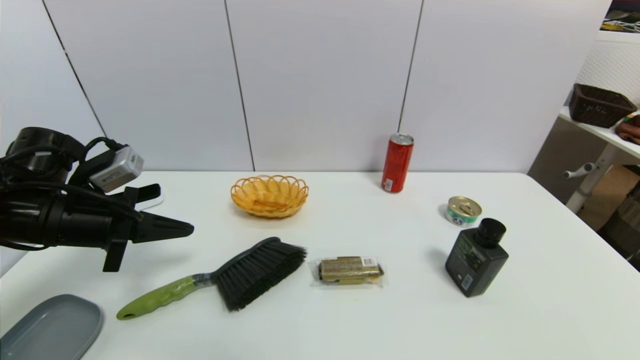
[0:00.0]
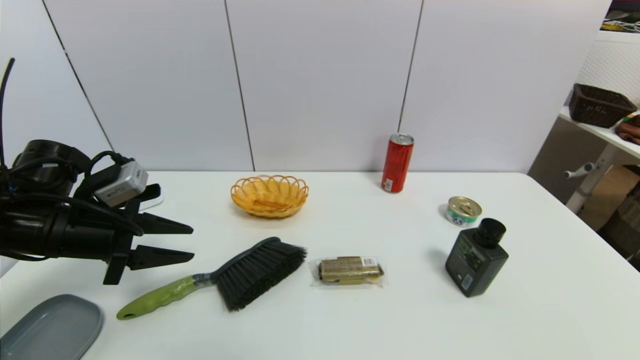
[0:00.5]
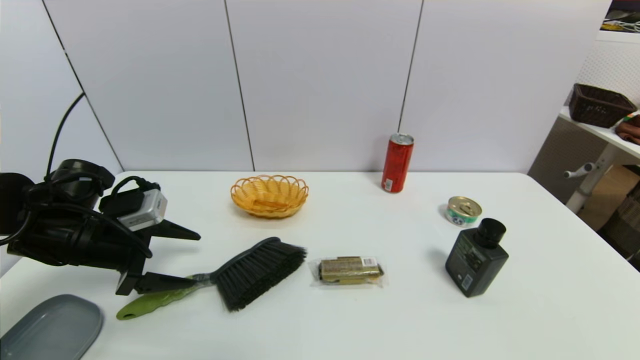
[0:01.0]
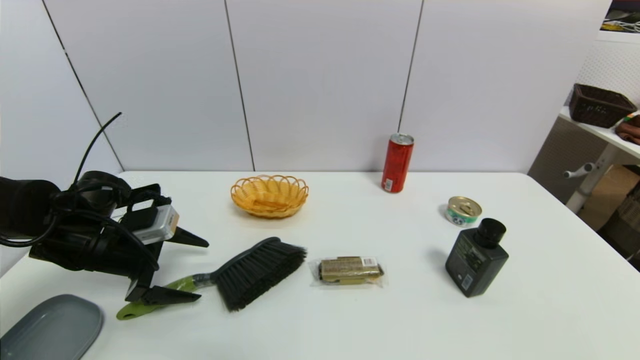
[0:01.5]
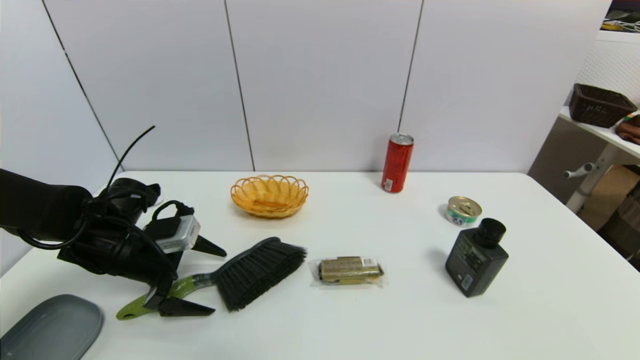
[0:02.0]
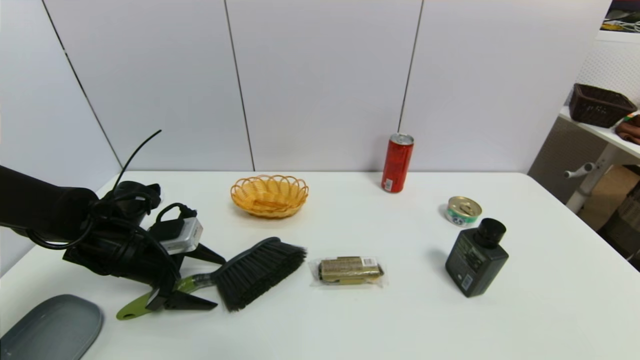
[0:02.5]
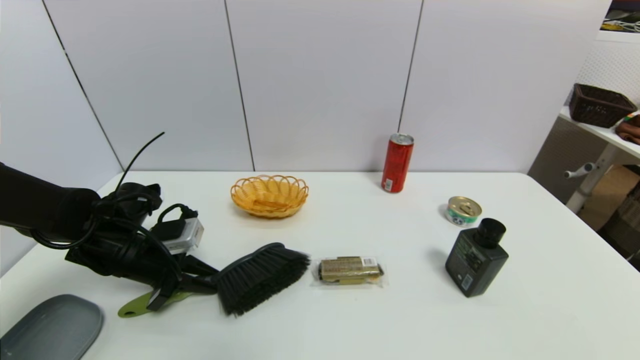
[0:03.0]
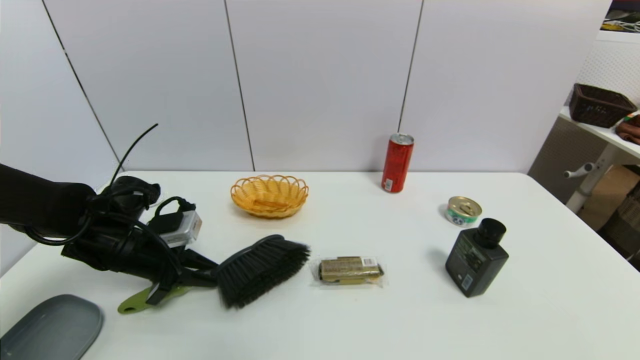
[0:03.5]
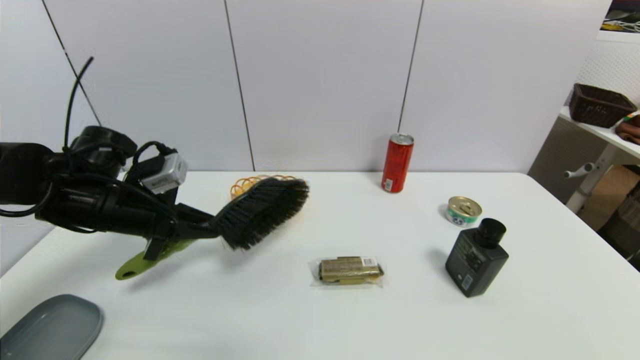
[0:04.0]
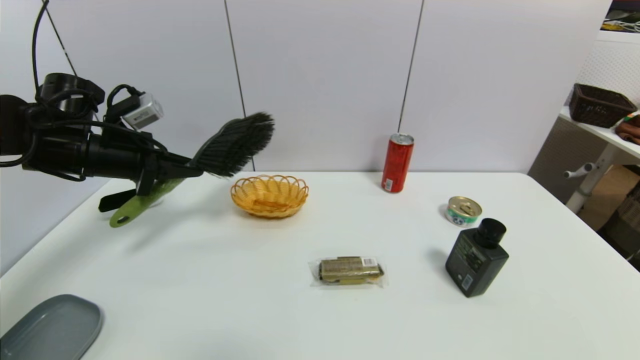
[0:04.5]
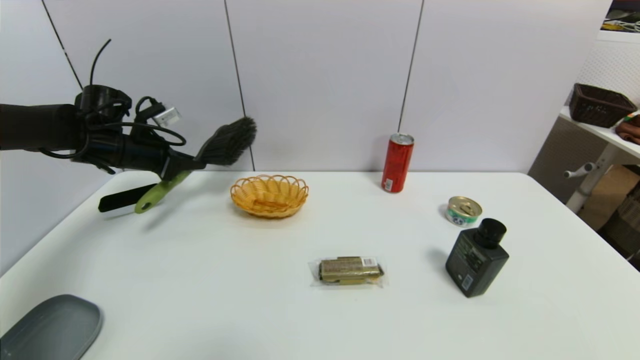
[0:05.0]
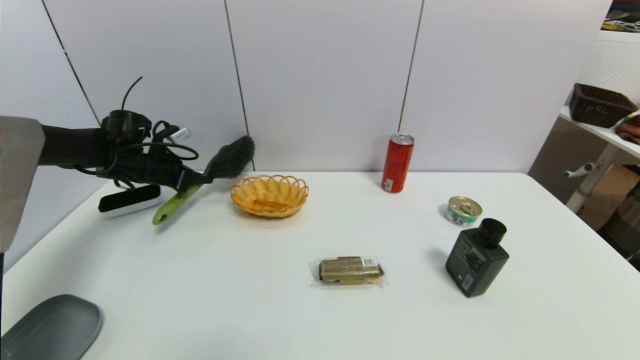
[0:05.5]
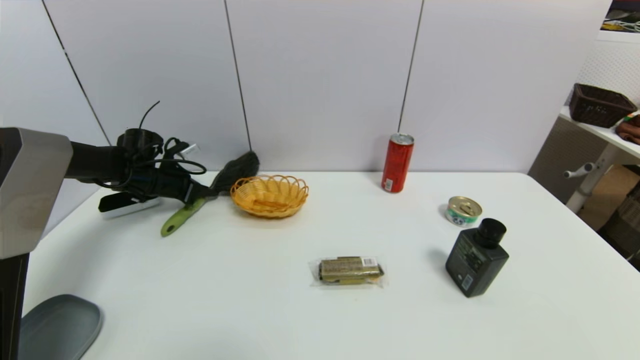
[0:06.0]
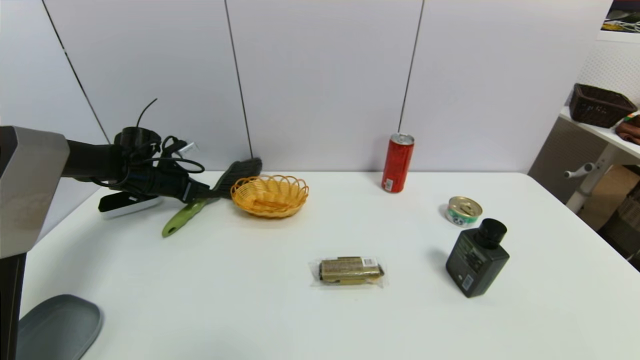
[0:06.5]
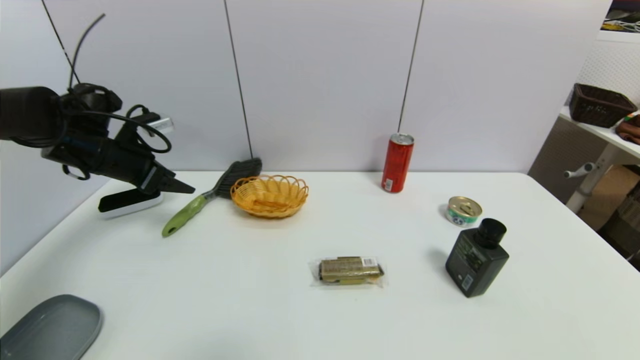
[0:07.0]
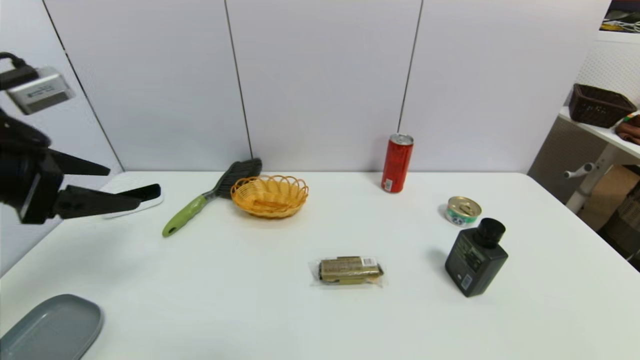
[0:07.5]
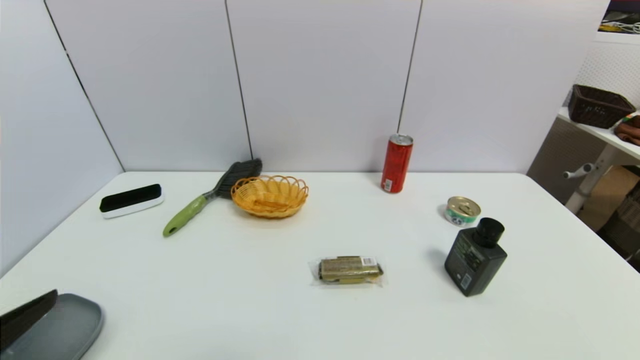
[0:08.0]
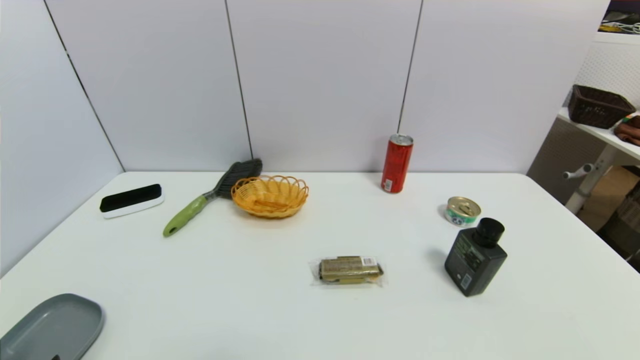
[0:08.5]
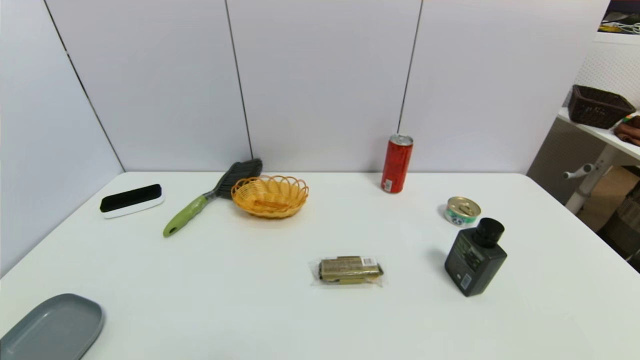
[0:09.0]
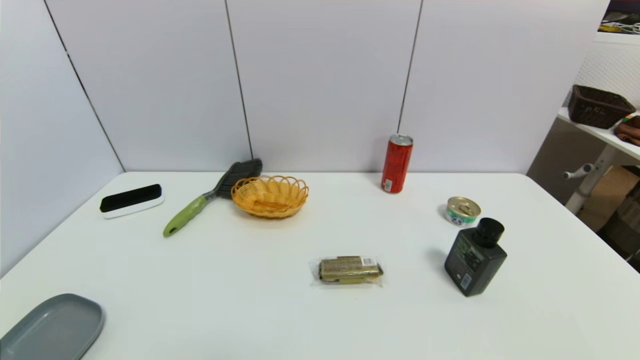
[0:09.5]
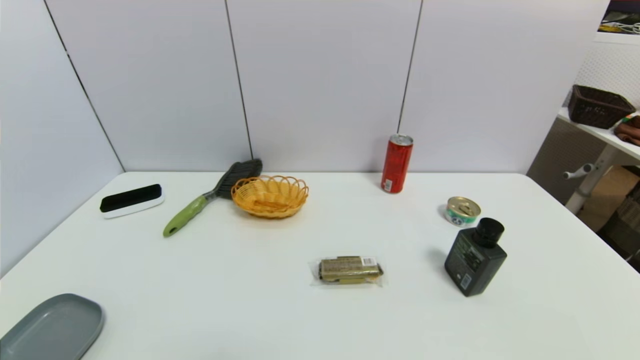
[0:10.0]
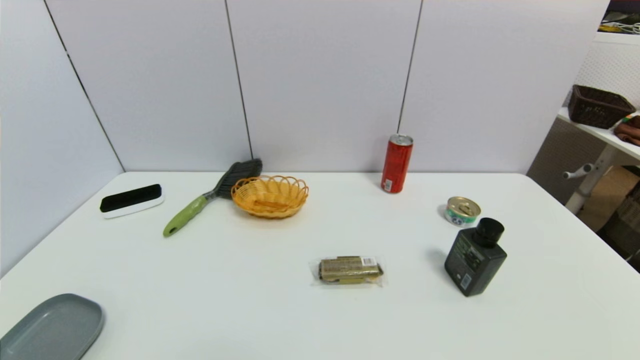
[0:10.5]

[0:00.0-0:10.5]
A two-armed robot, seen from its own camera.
Task of the whole recording: put the brush in the designated position.
Step, 0:00.0 to 0:02.5: Grasp the brush with left gripper.
Step, 0:03.5 to 0:06.5: Place the brush on the table with left gripper.
0:00.0 to 0:02.0: The left gripper shifts roughly 10 cm downward, and opens up.
0:02.0 to 0:04.0: The left gripper moves upward, about 5 cm, and closes.
0:04.0 to 0:06.5: The left gripper shifts some 15 cm forward, and opens.
0:06.5 to 0:08.5: The left gripper travels backward by approximately 50 cm, and opens.

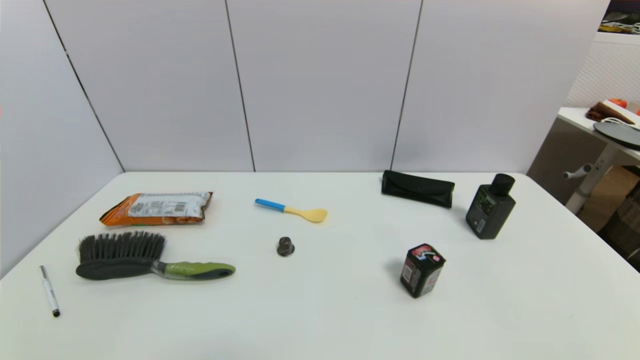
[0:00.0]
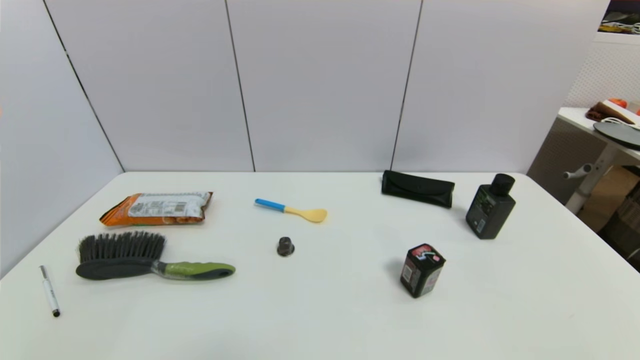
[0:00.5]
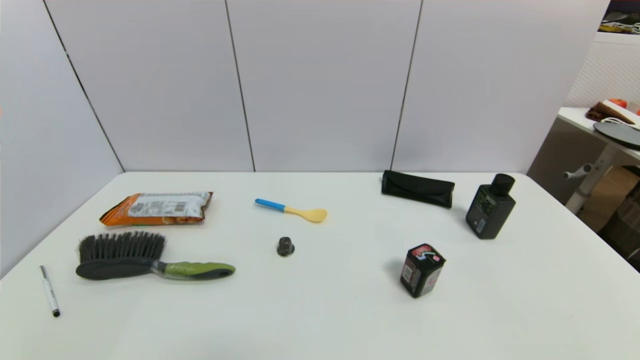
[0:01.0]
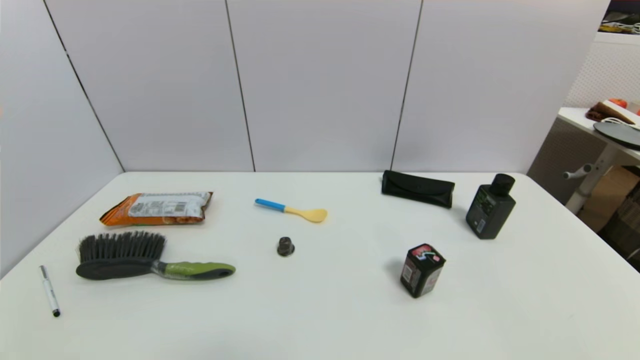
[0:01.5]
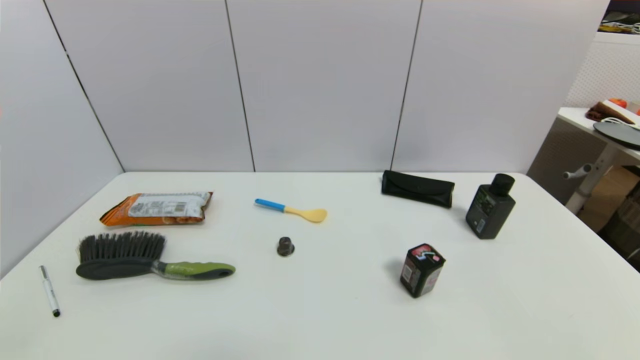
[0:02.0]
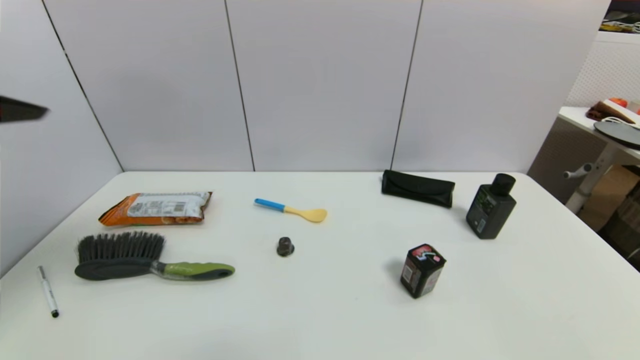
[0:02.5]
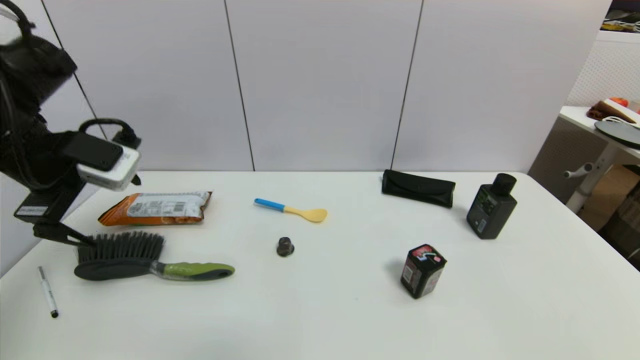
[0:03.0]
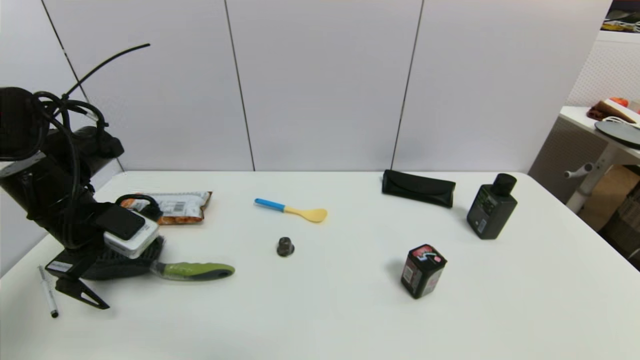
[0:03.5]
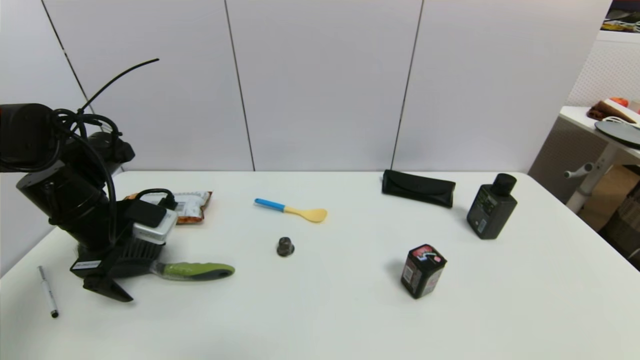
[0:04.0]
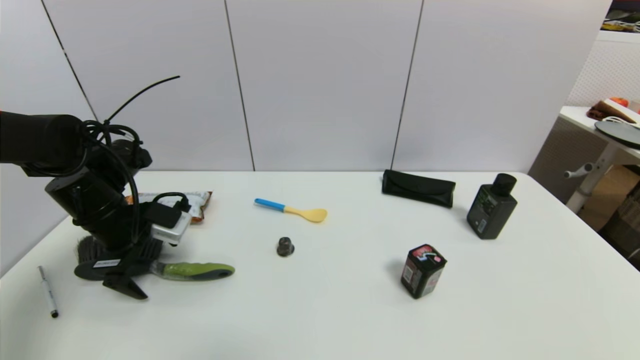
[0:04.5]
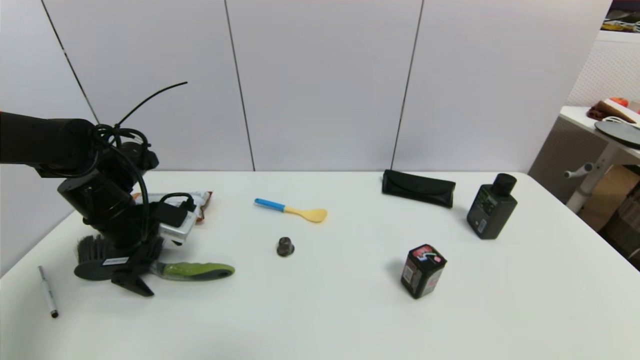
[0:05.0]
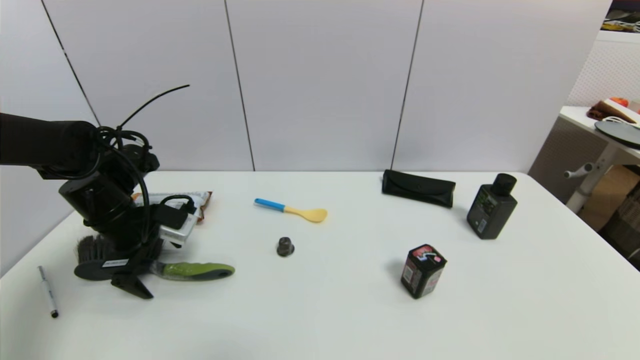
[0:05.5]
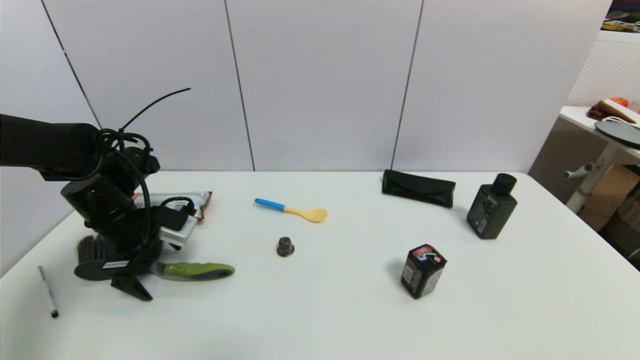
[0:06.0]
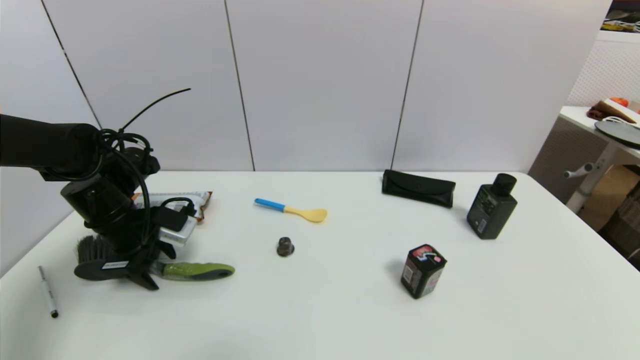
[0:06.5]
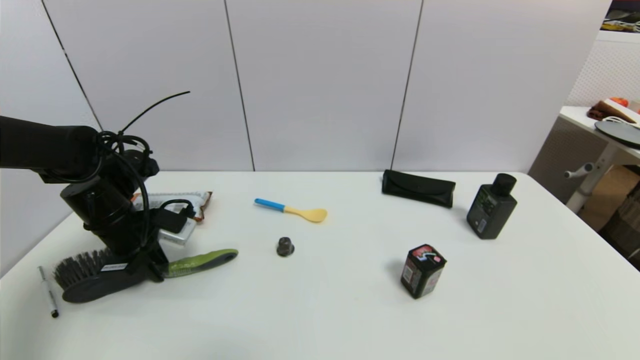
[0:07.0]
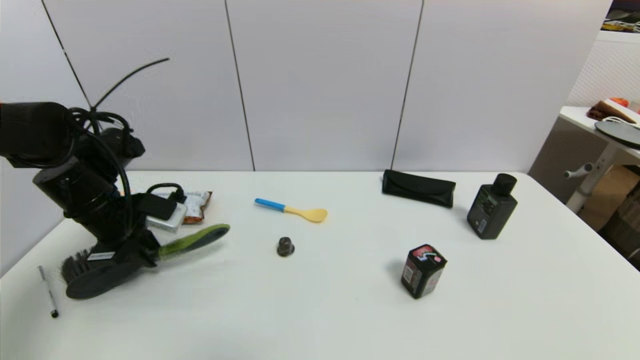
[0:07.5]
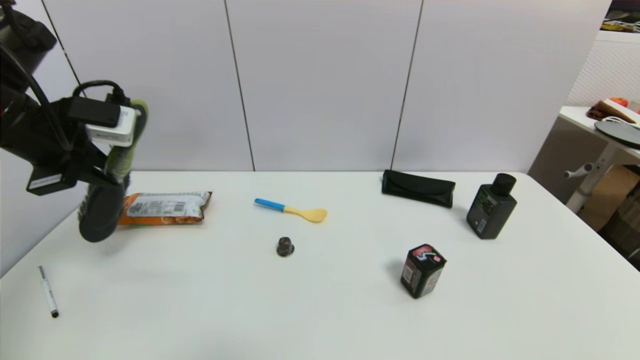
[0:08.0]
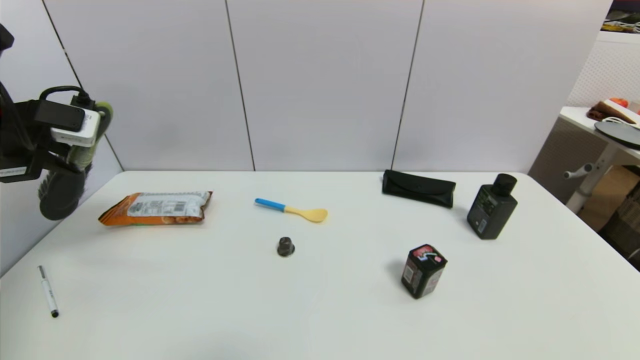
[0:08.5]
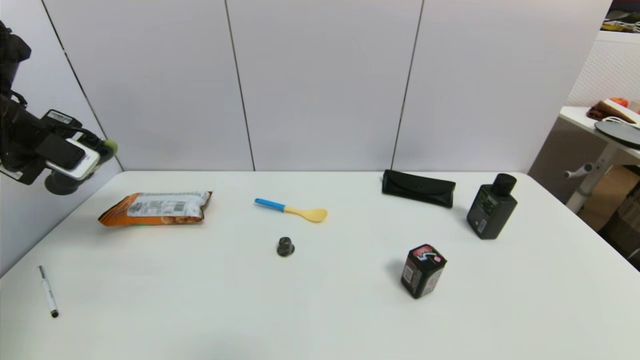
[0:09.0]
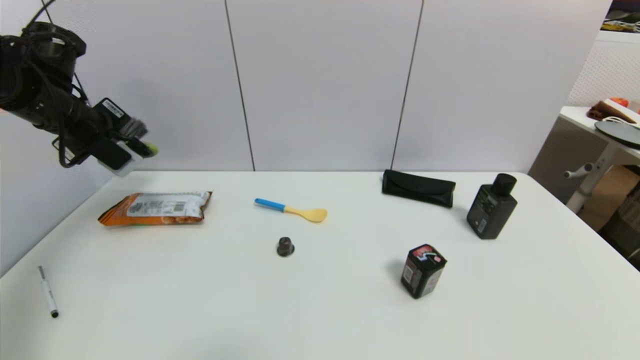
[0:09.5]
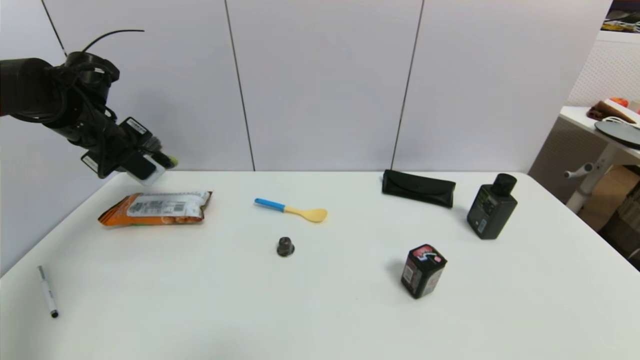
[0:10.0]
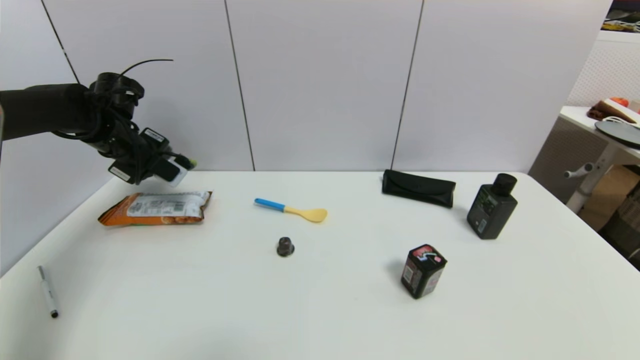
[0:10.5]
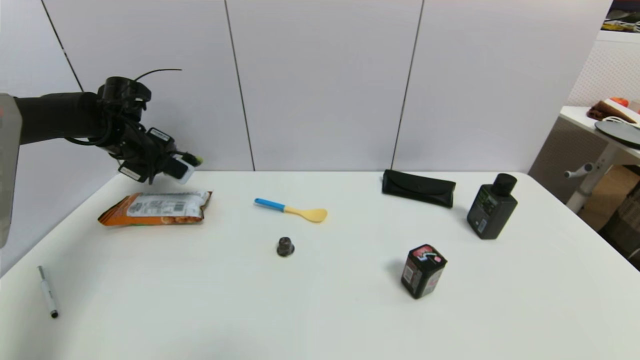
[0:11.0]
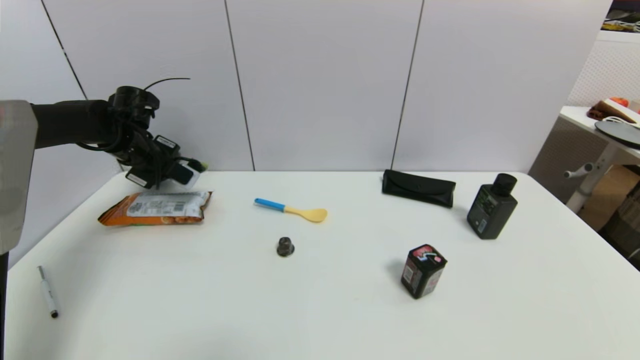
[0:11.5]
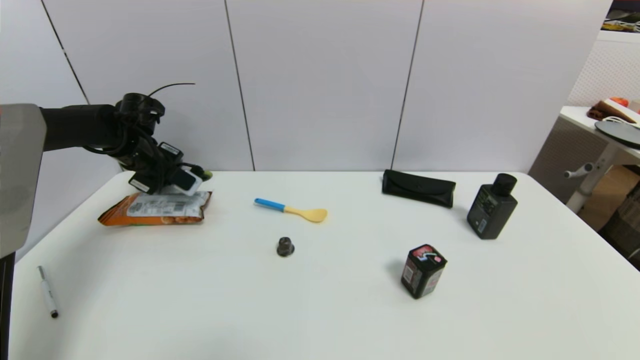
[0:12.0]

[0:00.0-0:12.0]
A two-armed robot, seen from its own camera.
Task of the whole recording: put the brush in the designated position.
Step, 0:03.0 to 0:07.5: Grasp the brush with left gripper.
0:02.0 to 0:04.0: The left gripper moves forward and downward, about 40 cm.
0:04.0 to 0:06.0: There are only small adjustments of the grippers.
0:06.0 to 0:08.0: The left gripper travels upward by approximately 15 cm, and closes its fingers.
0:08.0 to 0:10.0: The left gripper travels forward and downward by roughly 15 cm.
0:10.0 to 0:12.0: The left gripper is displaced downward and forward by approximately 10 cm.
